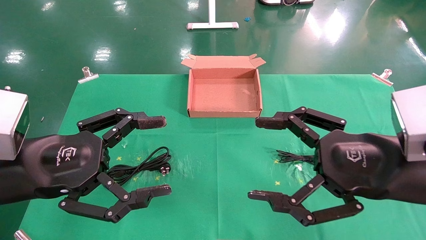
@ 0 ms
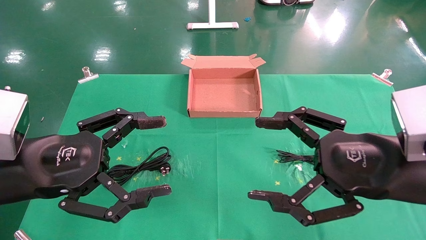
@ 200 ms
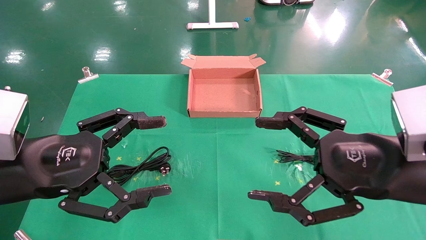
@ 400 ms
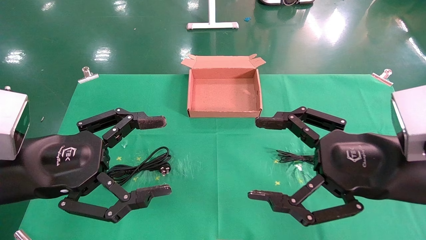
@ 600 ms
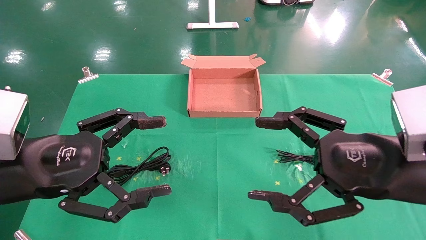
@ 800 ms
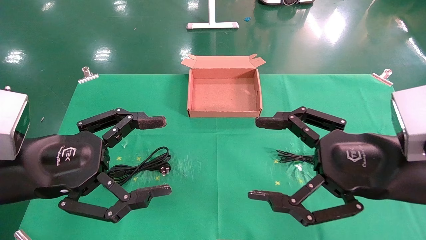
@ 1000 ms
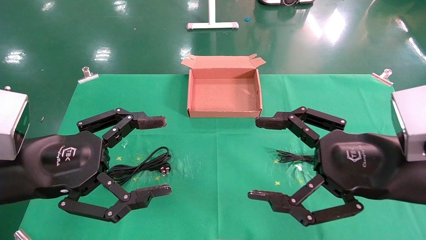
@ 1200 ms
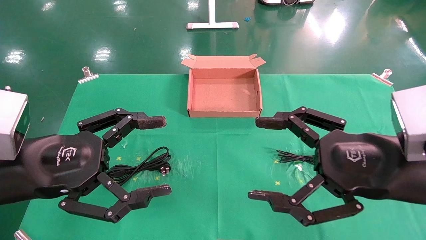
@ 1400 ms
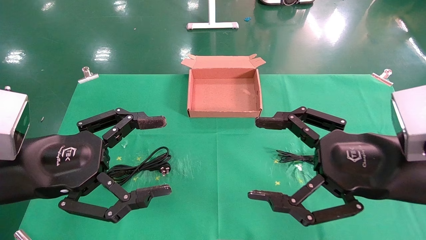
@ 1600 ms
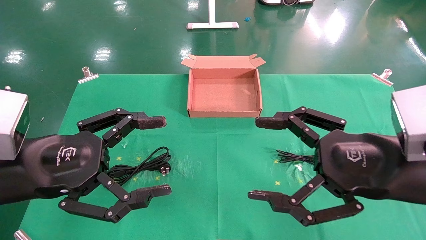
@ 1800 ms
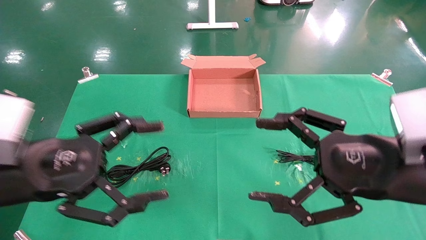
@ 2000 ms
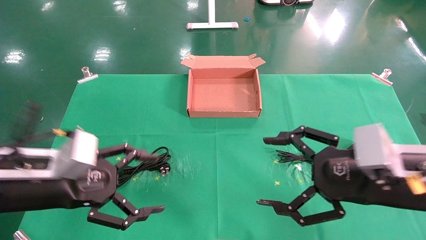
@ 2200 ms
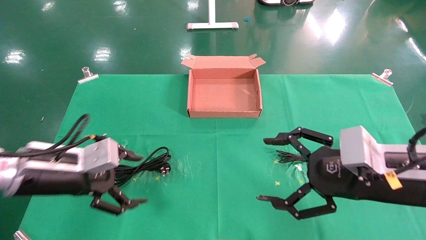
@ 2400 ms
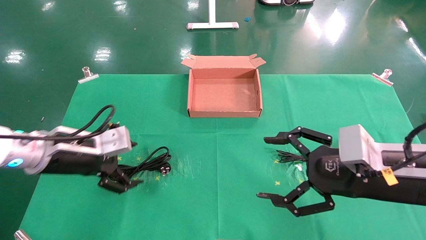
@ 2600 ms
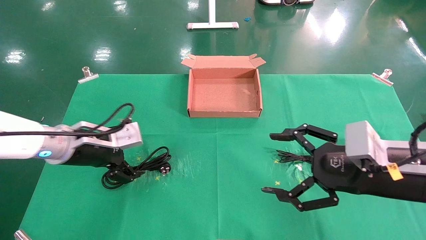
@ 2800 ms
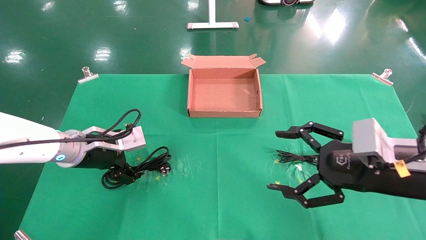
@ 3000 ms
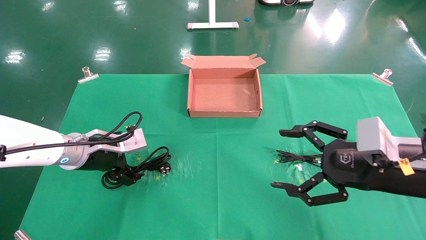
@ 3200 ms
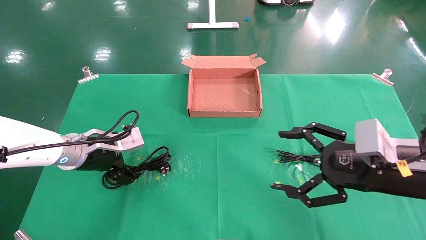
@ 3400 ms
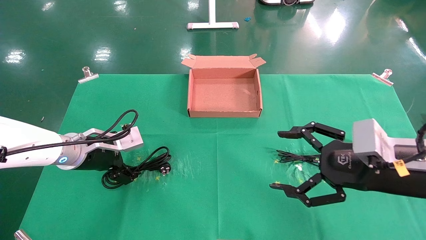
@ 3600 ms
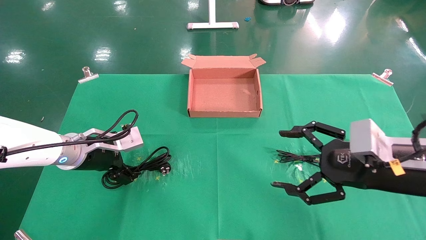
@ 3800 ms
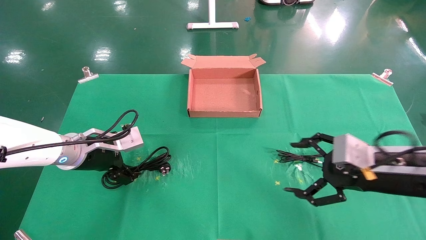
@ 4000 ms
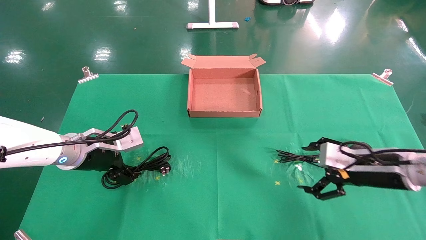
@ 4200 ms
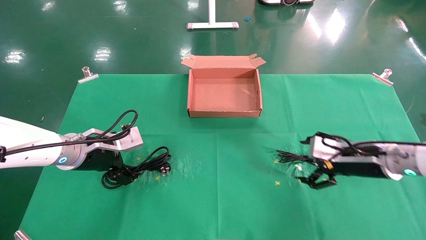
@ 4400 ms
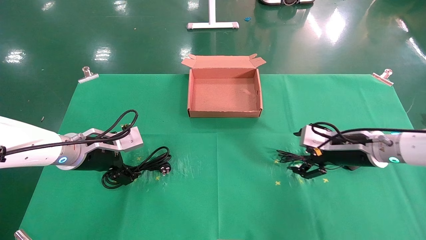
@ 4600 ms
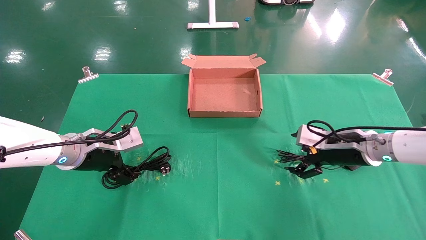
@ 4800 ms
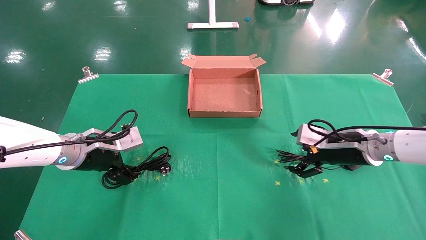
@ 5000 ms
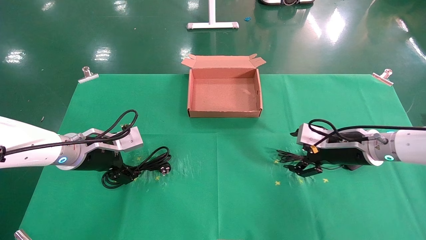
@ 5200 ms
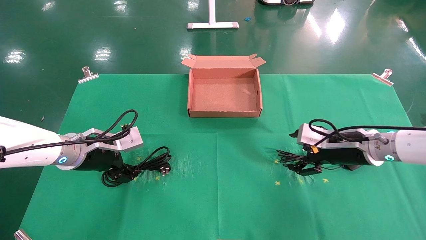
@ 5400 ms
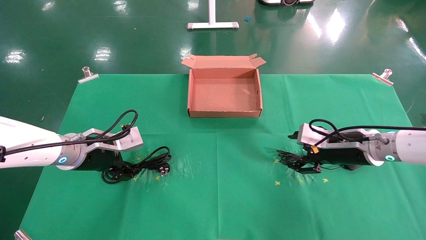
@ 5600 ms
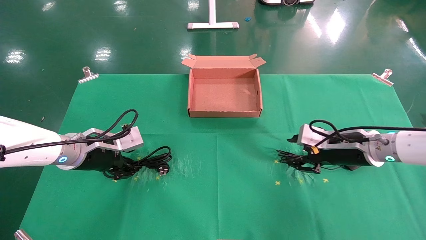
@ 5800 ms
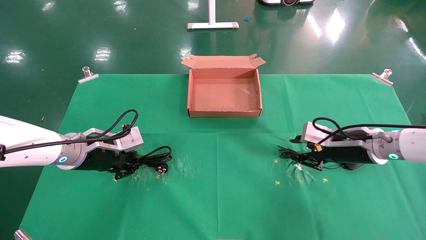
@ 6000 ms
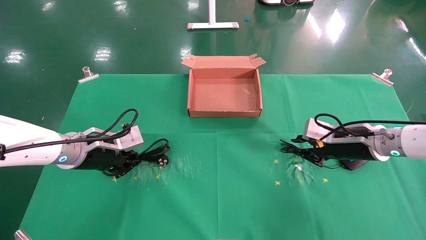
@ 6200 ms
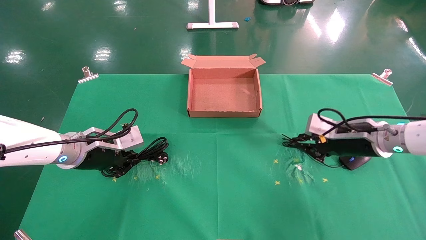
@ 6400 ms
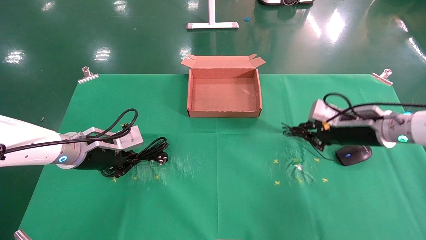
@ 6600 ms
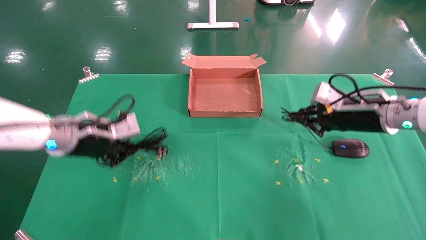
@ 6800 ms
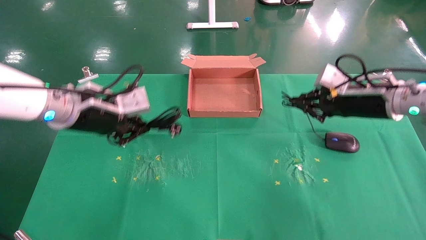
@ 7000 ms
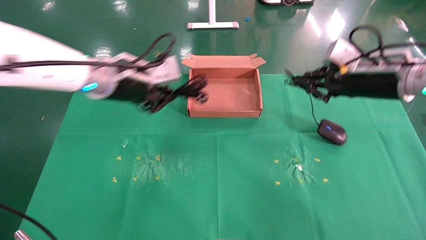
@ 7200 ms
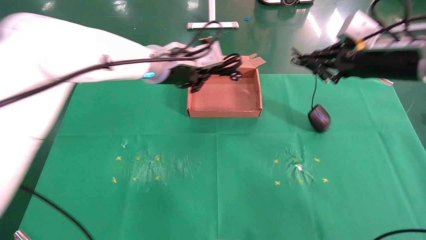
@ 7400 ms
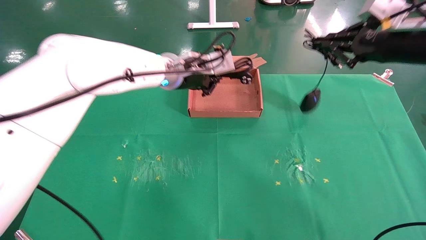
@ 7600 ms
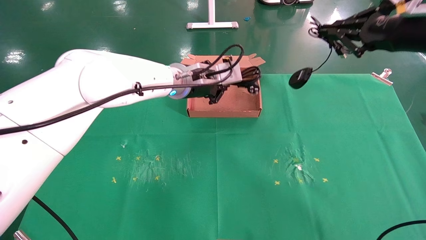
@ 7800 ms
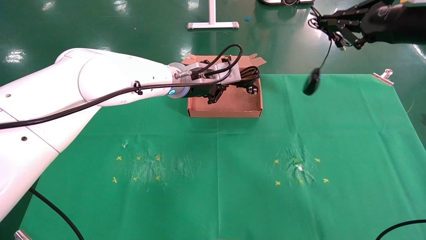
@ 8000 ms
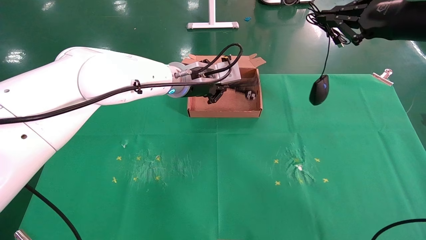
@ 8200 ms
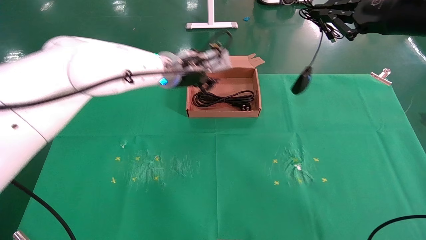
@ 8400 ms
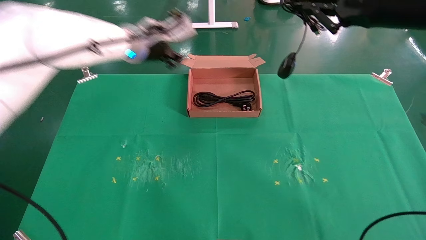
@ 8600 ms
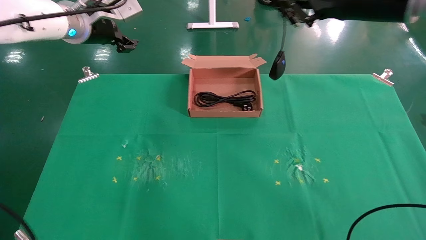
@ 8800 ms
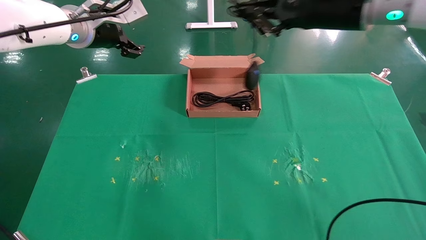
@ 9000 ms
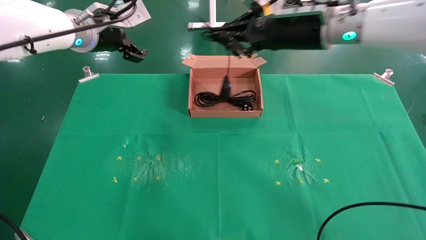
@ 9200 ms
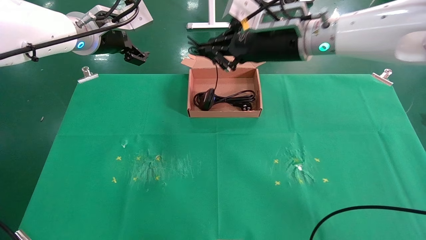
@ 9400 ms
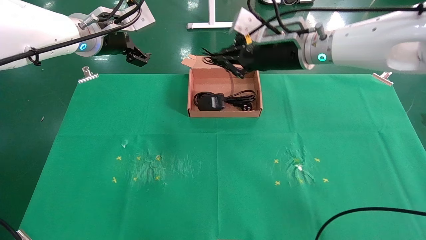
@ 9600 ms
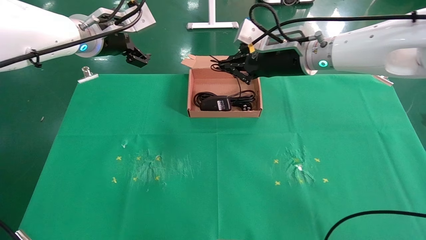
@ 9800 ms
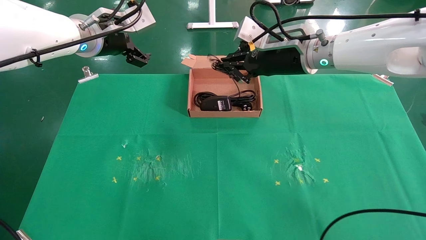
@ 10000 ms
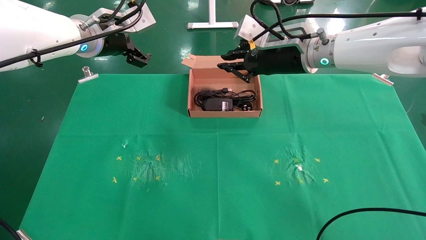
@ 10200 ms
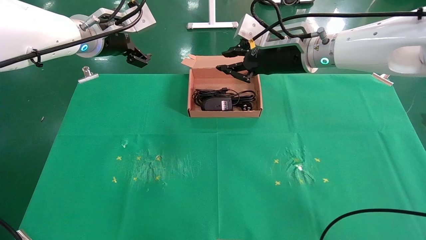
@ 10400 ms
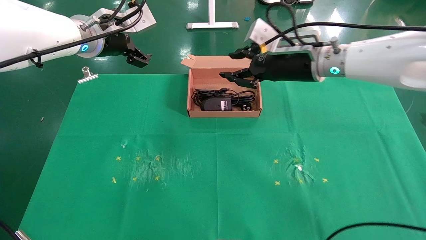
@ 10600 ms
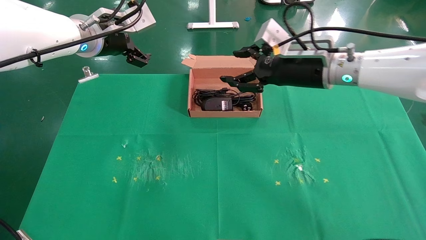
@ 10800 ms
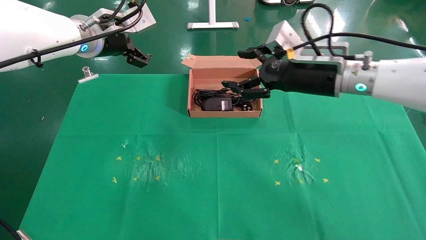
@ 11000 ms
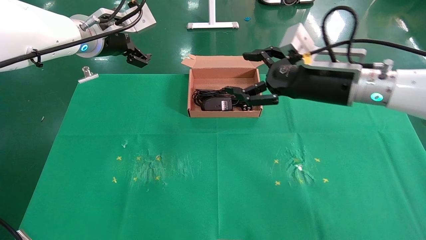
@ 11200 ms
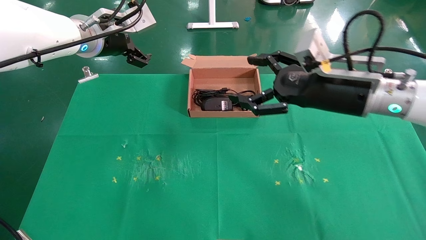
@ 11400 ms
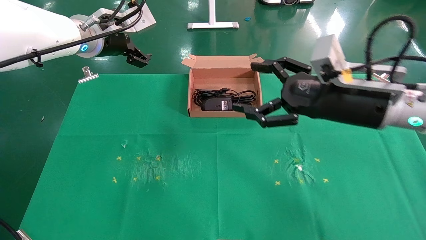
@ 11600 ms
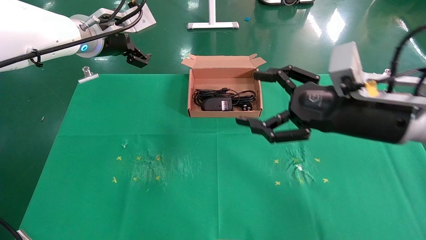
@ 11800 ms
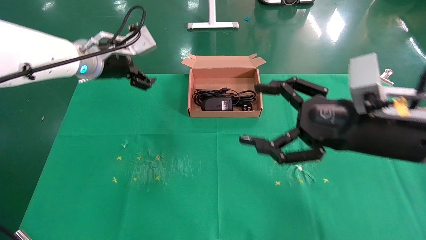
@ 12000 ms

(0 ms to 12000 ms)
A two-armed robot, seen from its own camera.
Task of the whole recording: grasp data cable left put into box grasp mouse right put into box.
Step, 2000 ms - 6400 ms: Simultaneously pick up the mouse and power cord from the accessory packaging area.
Step, 6600 ms - 10400 ms: Place the mouse and power cord into the box.
0 ms - 1600 ms: Both grippers stay about where they are.
1600 ms - 3000 ms: The right gripper changes place by some 5 cm, while the left gripper moves forward and downward, roughly 15 cm.
3000 ms - 4400 ms: The right gripper travels forward by roughly 10 cm.
4400 ms - 6000 ms: The left gripper closes, while the right gripper closes its fingers.
6000 ms - 7600 ms: The right gripper shifts about 20 cm upward, and closes up; the left gripper travels to the right, upward and forward by about 25 cm.
7600 ms - 9000 ms: The right gripper moves to the left, roughly 15 cm; the left gripper shifts approximately 15 cm to the left and upward, and opens its fingers.
9000 ms - 10400 ms: The left gripper opens up. The right gripper travels downward by approximately 5 cm.
10400 ms - 12000 ms: The left gripper goes roughly 5 cm downward, while the right gripper is displaced backward, to the right and downward by about 20 cm, and opens up.

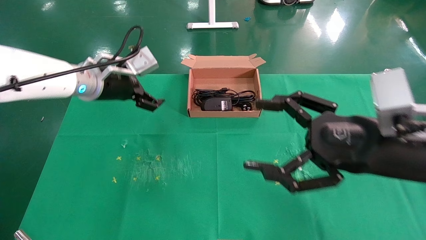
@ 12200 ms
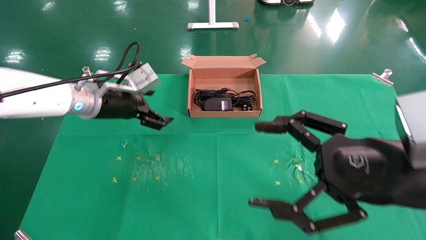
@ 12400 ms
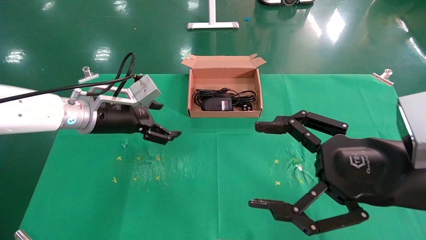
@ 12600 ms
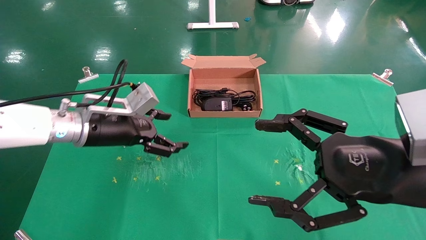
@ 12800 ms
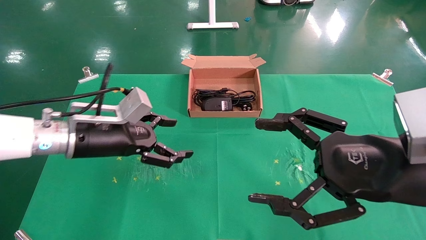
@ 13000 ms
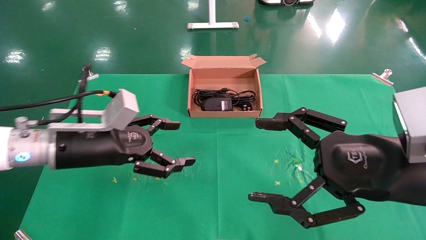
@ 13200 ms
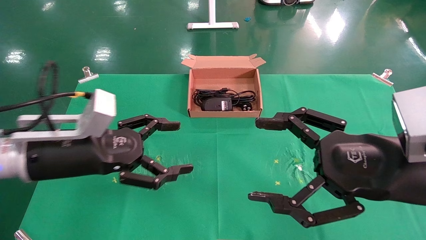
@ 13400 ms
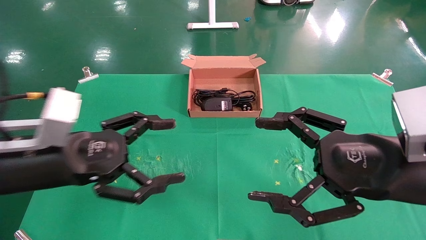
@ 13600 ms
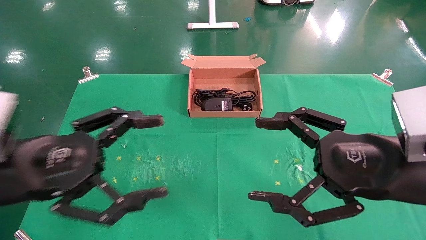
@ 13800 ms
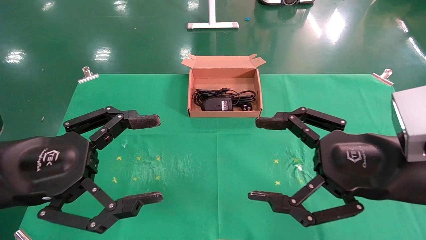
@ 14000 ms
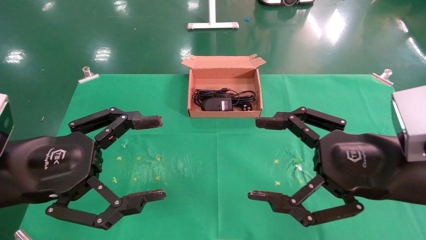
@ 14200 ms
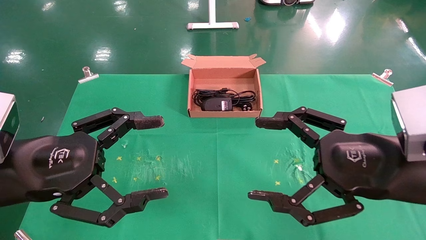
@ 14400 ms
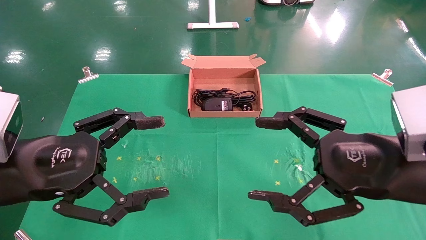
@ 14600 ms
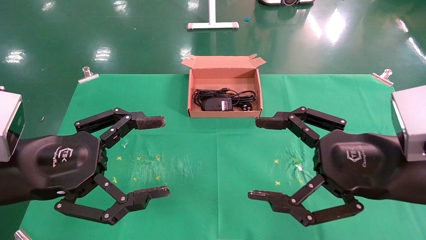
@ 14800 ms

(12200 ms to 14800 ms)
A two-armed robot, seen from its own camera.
Task of the whole recording: grasp data cable left put into box grasp mouse right put into box.
12200 ms - 13400 ms: The left gripper travels backward and downward by some 15 cm.
13400 ms - 14800 ms: The left gripper heads backward, covering some 5 cm.
